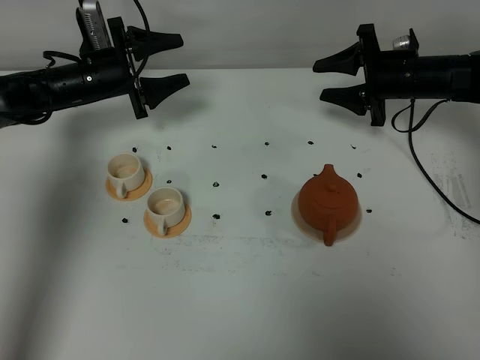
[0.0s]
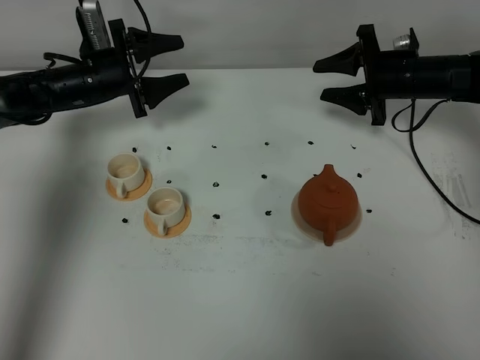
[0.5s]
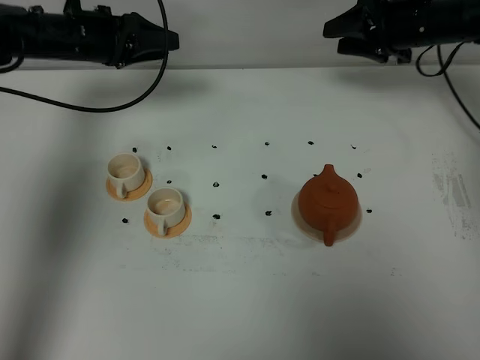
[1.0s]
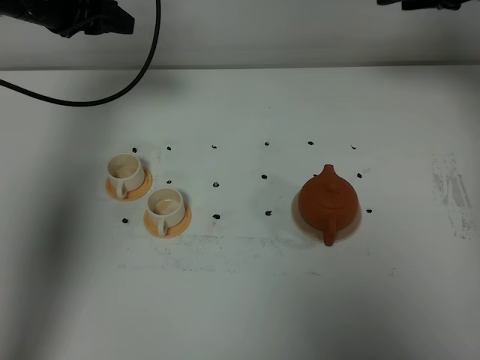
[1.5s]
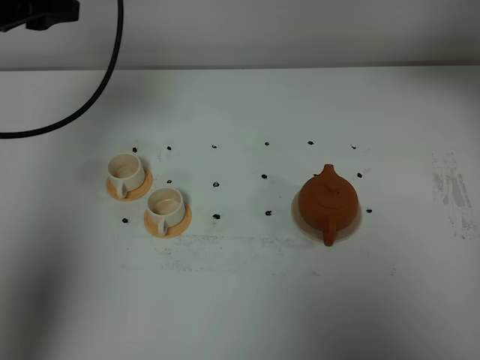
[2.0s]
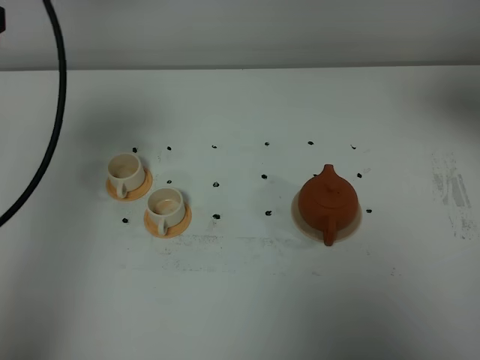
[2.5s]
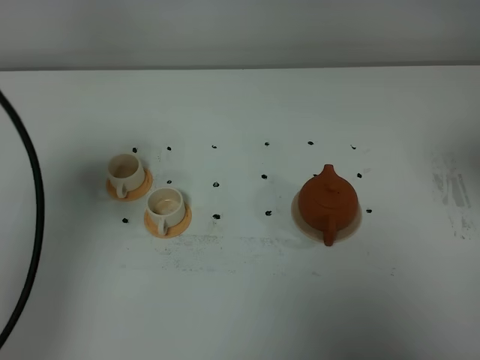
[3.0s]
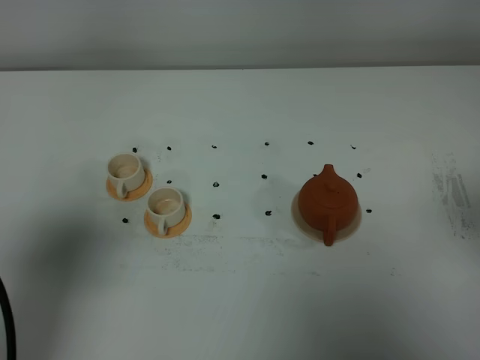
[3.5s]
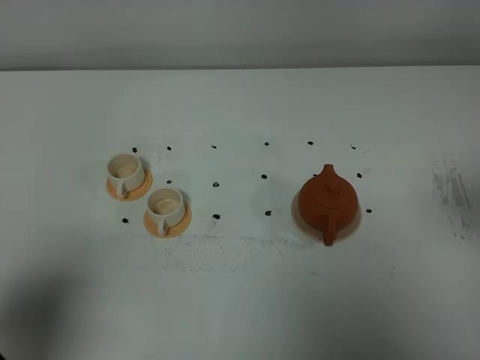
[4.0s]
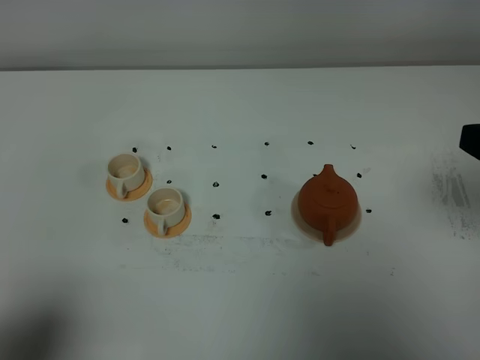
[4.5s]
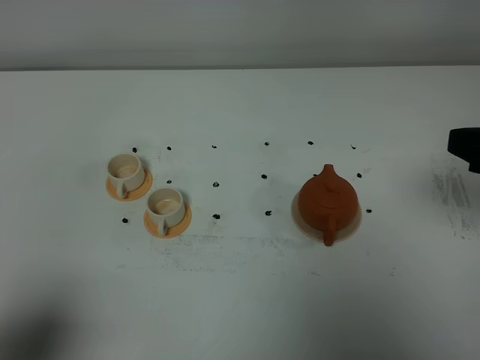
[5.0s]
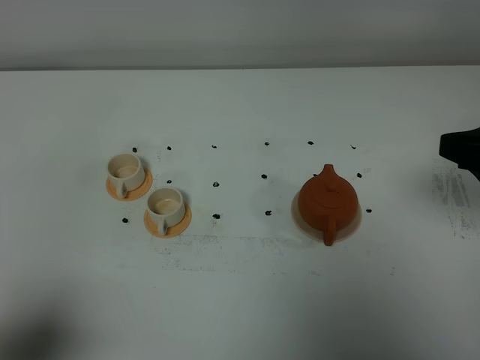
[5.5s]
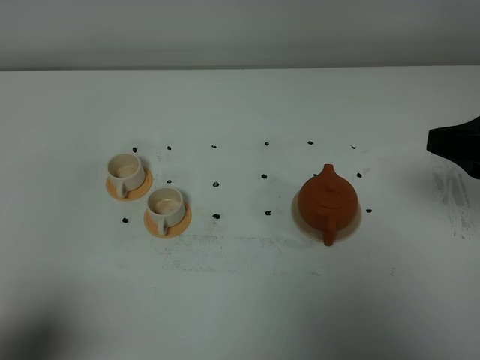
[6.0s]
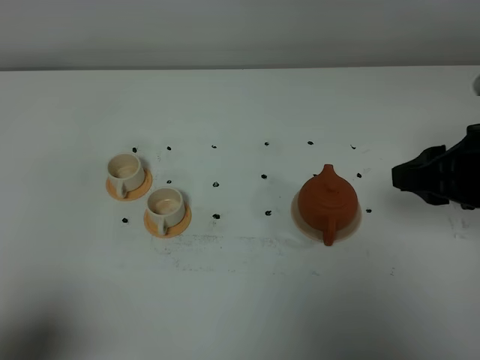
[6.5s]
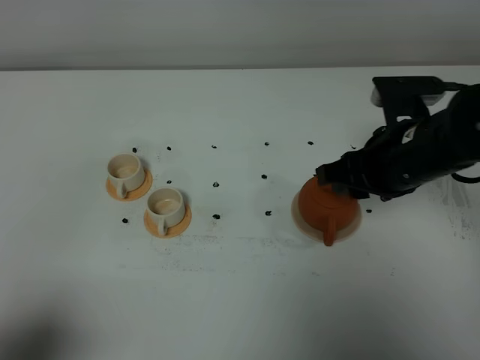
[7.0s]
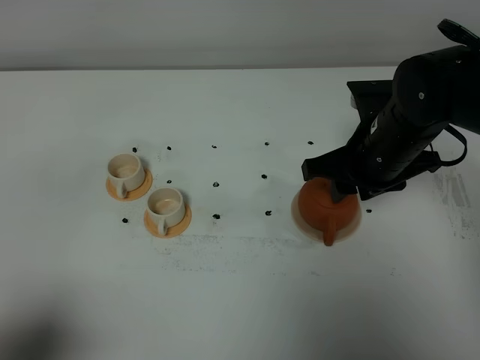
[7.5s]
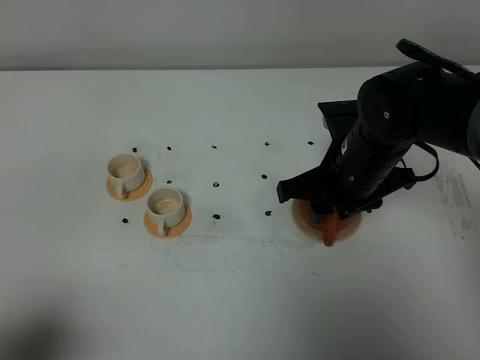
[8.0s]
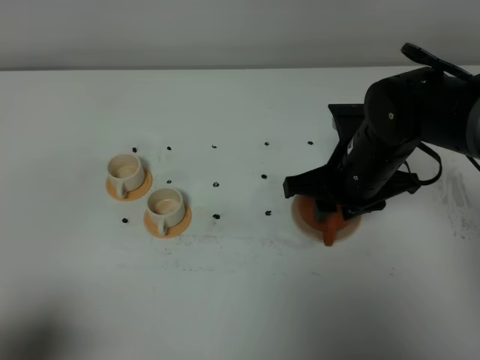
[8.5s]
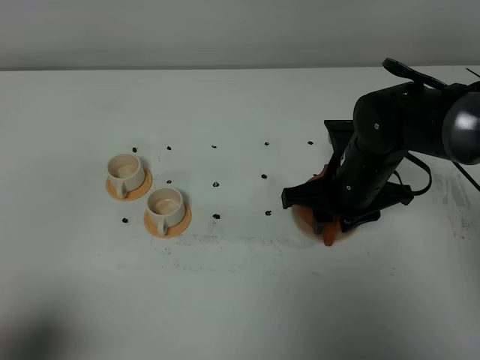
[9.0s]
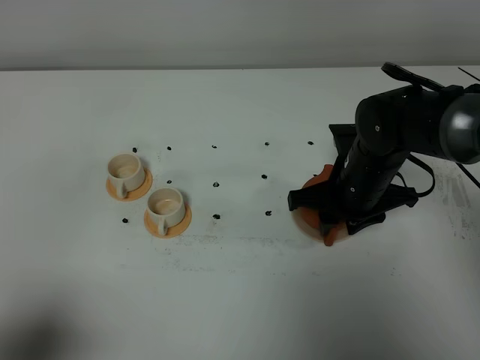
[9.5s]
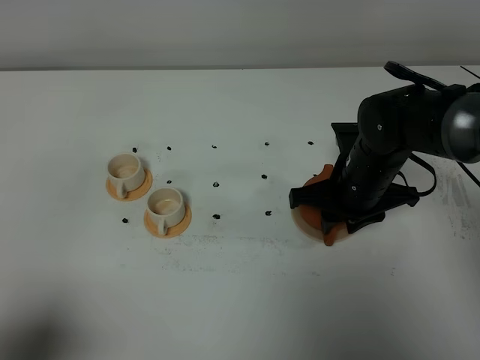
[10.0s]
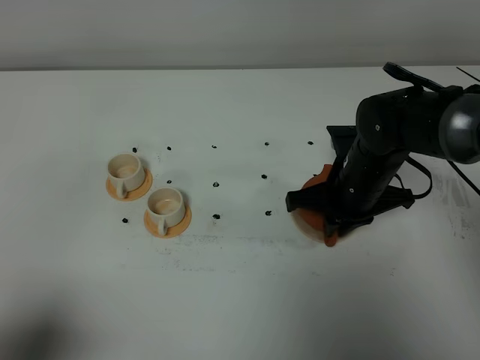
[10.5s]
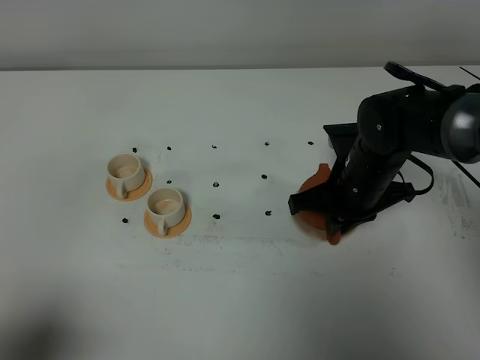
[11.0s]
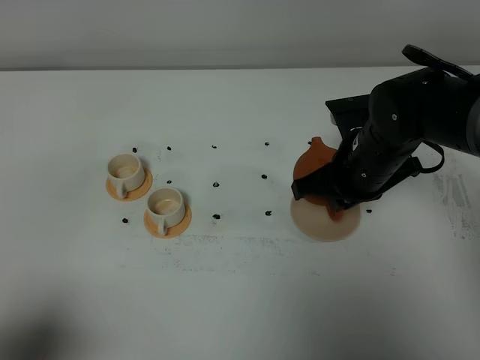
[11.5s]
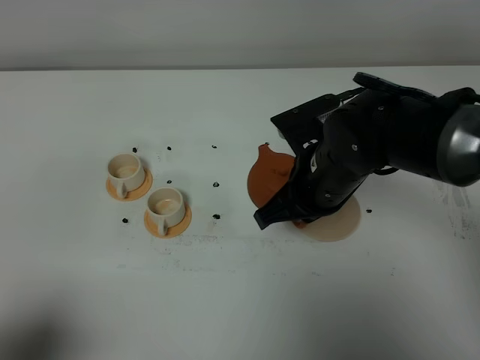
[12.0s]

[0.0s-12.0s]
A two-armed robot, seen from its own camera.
Task of the whole recording: grasp the brown teapot and pour the tea into the two white teacups one by one, put the brown teapot back in its original place.
Step, 0.0s to 11.0s: Pick up the teapot with the right gripper.
0.0s to 2.0s: The right gripper travels upward by approximately 25 cm, while the left gripper moves upward and backward, about 25 cm.
2.0s to 4.0s: Both grippers move backward, approximately 30 cm. The left gripper closes its fingers.
4.0s to 6.0s: The right gripper shifts some 10 cm forward, while the left gripper shifts by approximately 5 cm.
6.0s to 8.0s: The right gripper heads to the left, downward and forward, covering roughly 20 cm.
8.0s to 10.0s: The right gripper heads downward, covering roughly 5 cm.
10.0s to 12.0s: The right gripper shifts approximately 5 cm to the left, and closes.

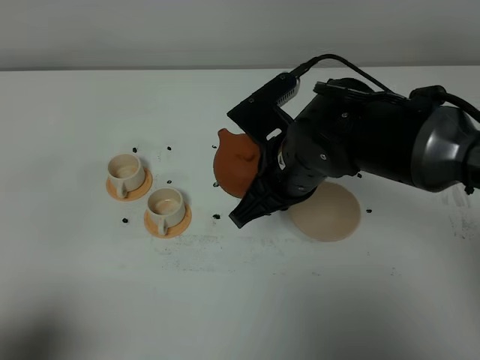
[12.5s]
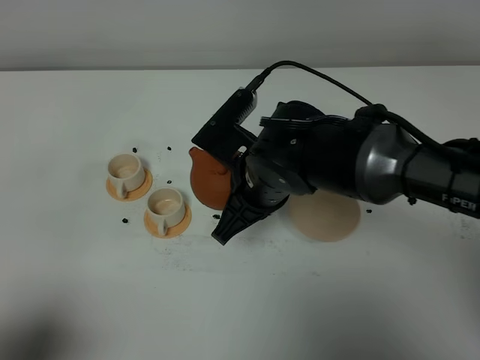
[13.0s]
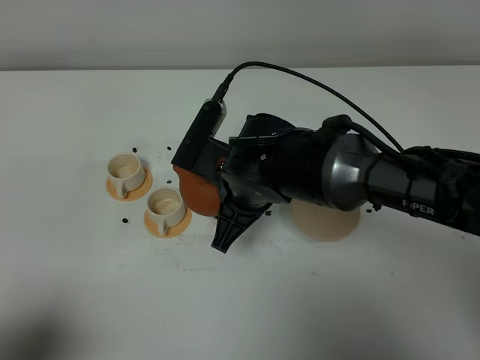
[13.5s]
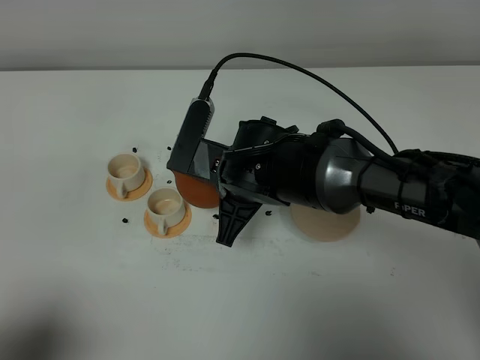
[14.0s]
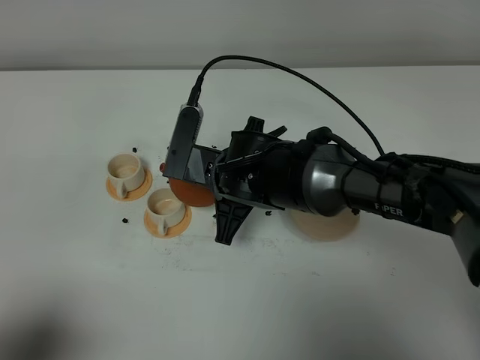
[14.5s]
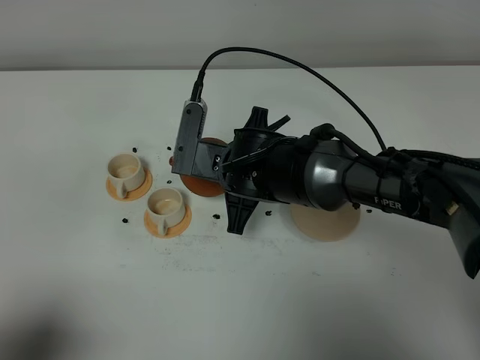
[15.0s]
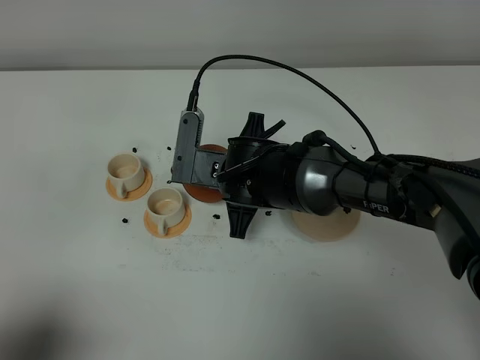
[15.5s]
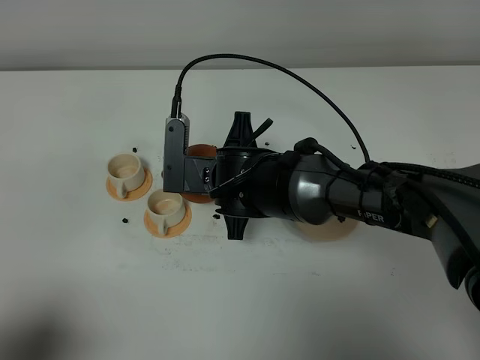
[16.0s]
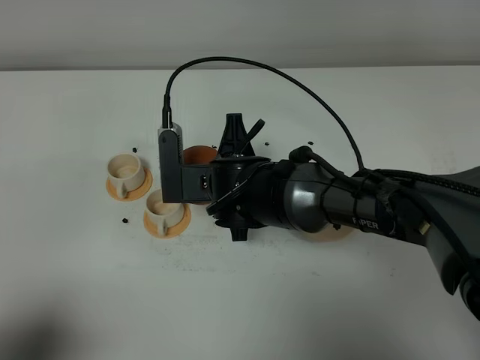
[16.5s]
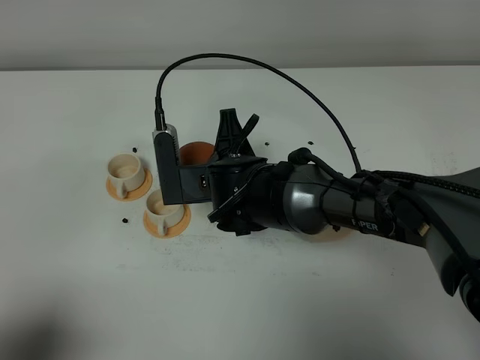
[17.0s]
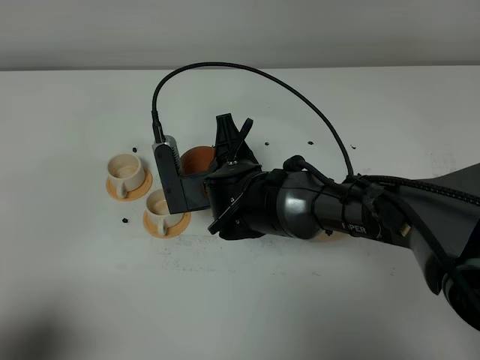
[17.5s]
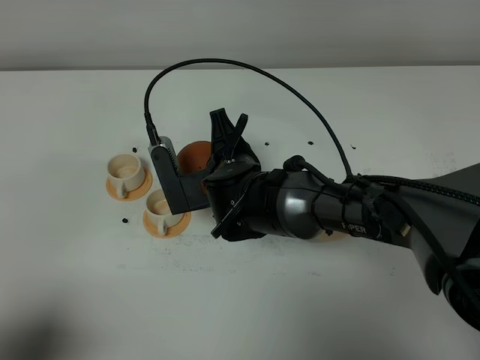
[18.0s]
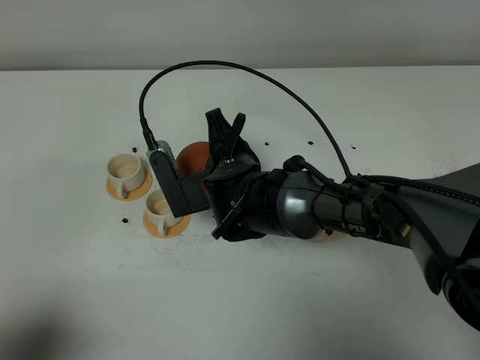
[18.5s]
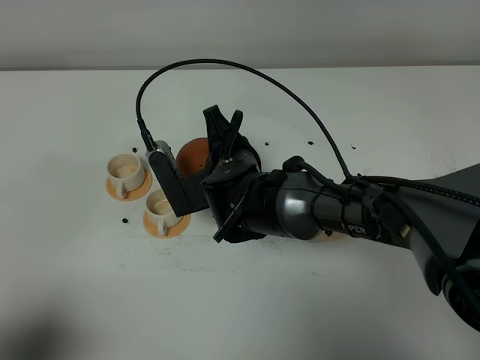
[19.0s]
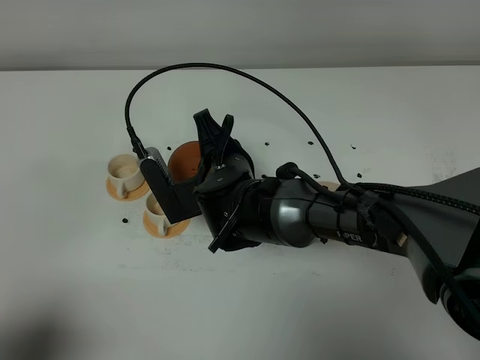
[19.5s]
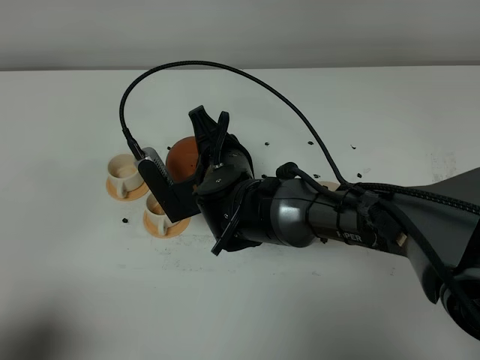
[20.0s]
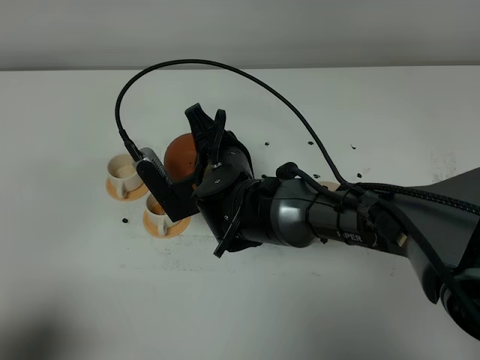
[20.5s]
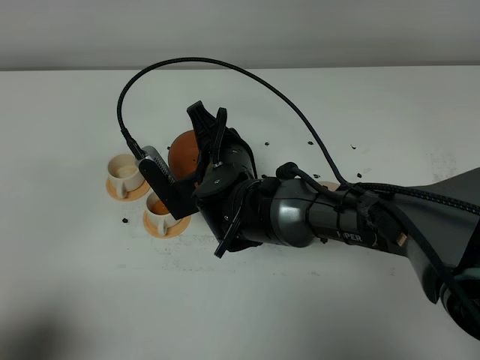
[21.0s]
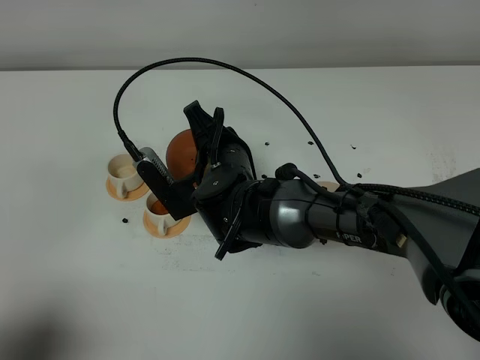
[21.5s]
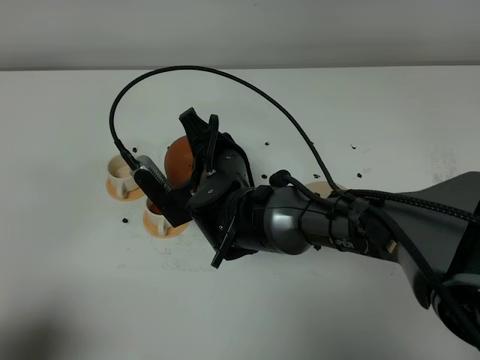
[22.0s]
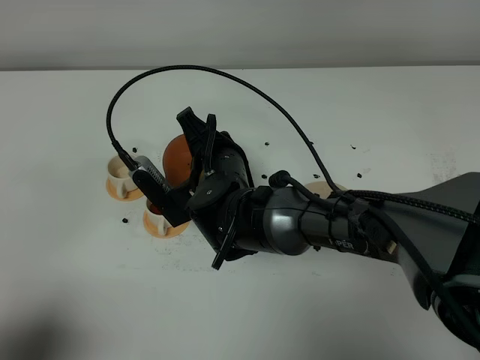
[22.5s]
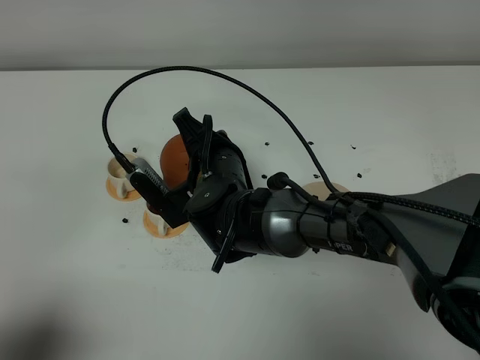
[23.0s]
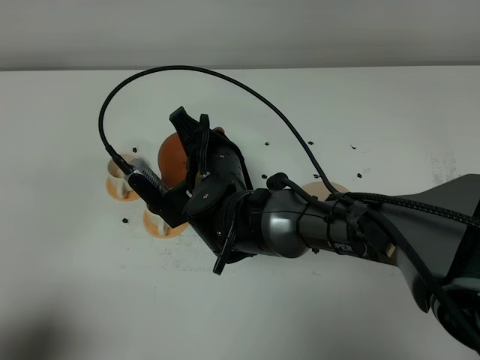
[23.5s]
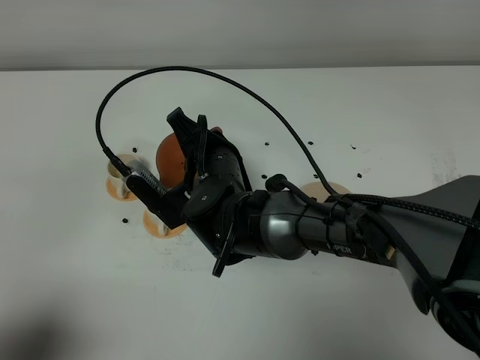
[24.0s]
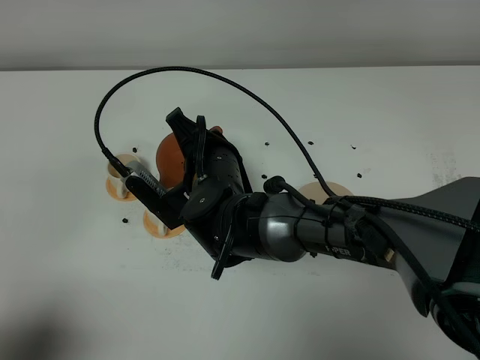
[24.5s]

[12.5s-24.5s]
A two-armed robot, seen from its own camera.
Task of the whole recording: grasp the brown teapot and pour the tea into the two white teacups one by one, put the brown teapot back in its original place.
12.5s to 14.5s: The right gripper heads to the left and downward, covering about 10 cm.
18.5s to 22.5s: The grippers stay close to where they were, moving slightly.
22.5s to 24.5s: Neither gripper changes place.

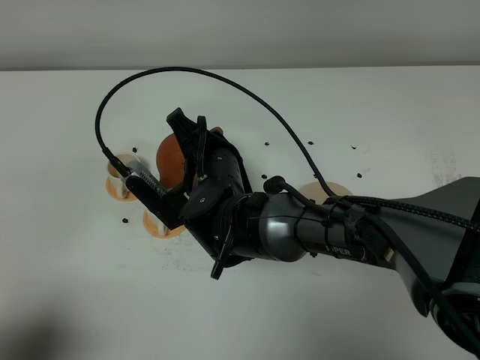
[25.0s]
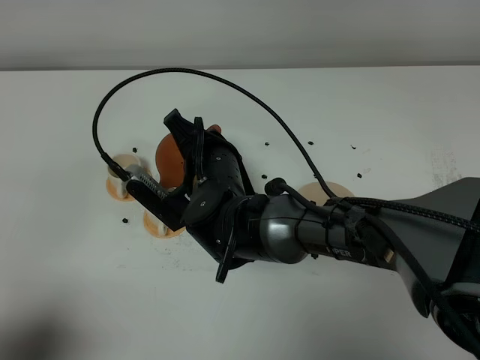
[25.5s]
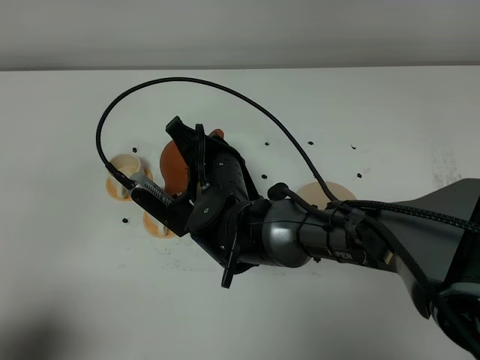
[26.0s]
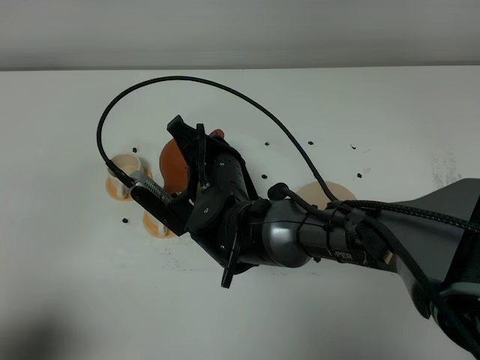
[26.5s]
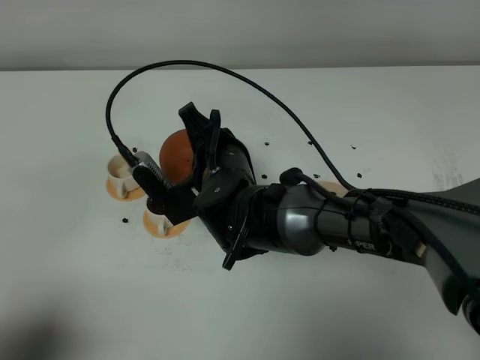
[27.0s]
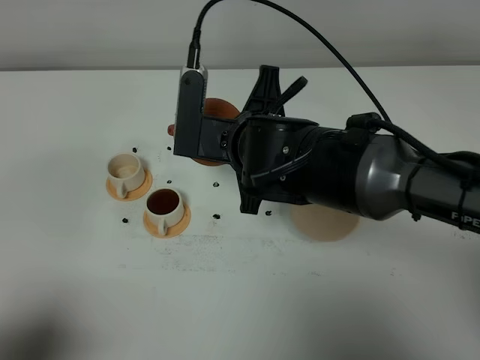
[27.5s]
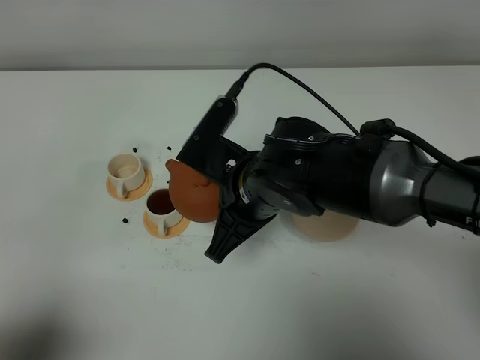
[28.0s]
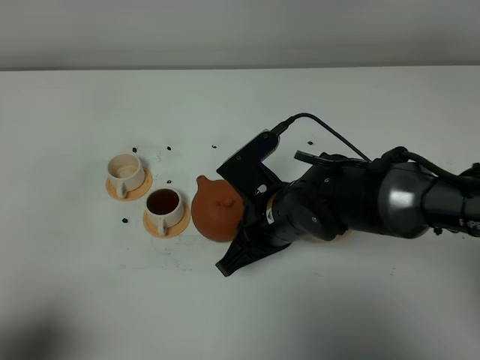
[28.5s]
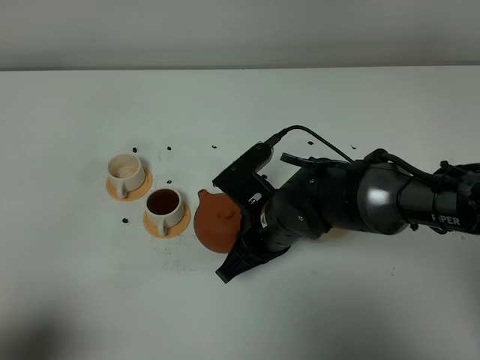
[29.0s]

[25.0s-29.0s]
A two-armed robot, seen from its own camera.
Task of the whole recording: grasp the brown teapot and pour the tea into the two white teacups one by one, put the brown teapot back in its original place.
25.0s to 27.0s: The grippers stay close to where they were, moving slightly.
27.0s to 29.0s: The right gripper is displaced to the right by roughly 5 cm, and travels upward and back again, about 5 cm each way.
